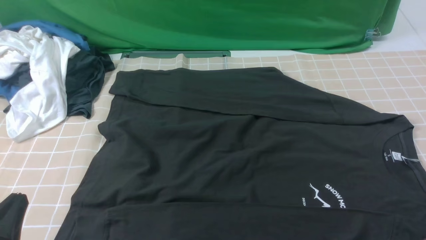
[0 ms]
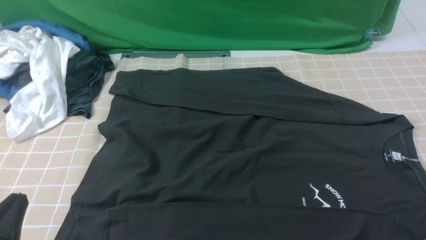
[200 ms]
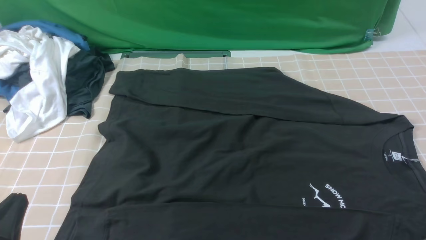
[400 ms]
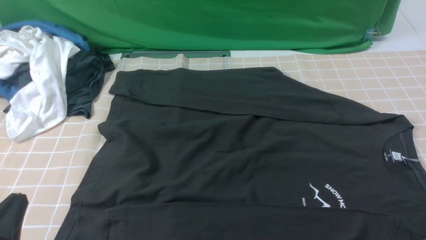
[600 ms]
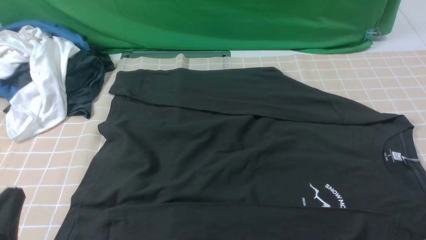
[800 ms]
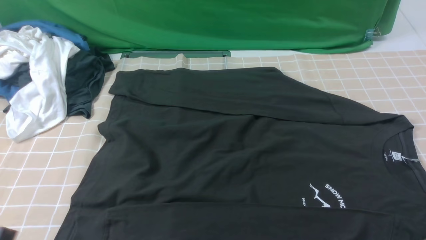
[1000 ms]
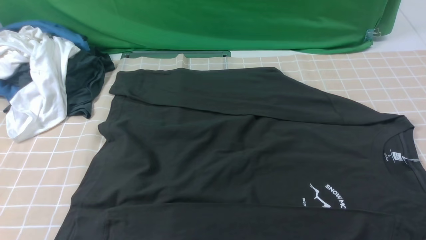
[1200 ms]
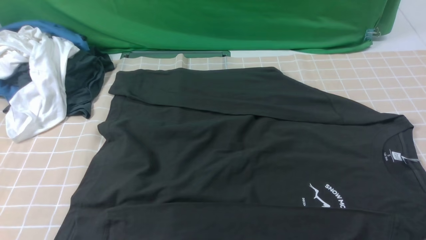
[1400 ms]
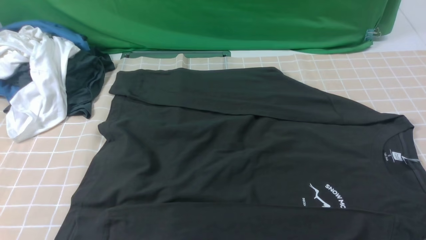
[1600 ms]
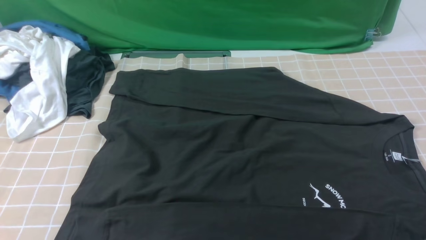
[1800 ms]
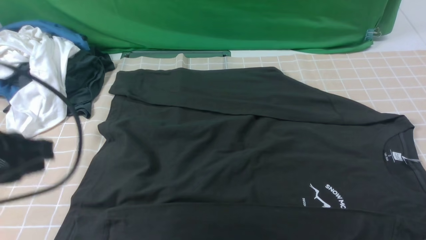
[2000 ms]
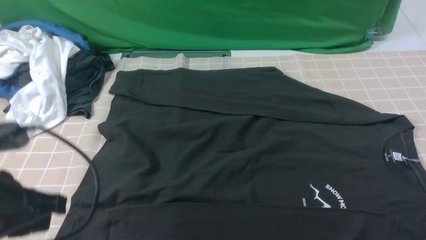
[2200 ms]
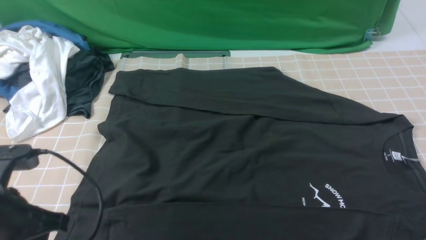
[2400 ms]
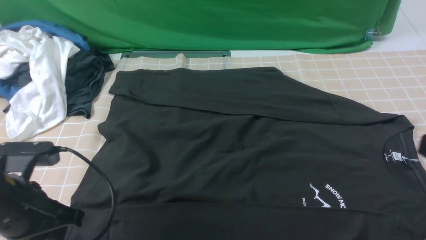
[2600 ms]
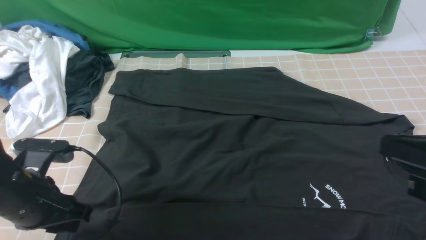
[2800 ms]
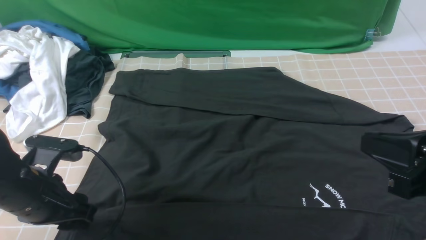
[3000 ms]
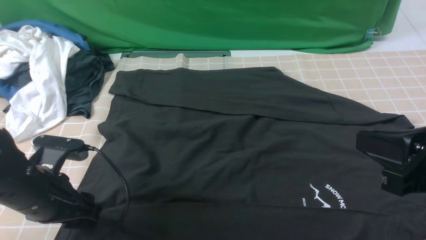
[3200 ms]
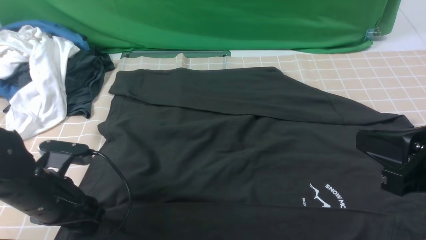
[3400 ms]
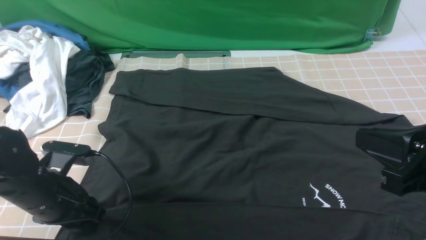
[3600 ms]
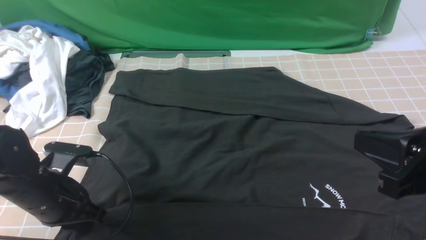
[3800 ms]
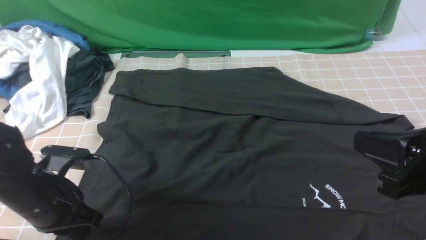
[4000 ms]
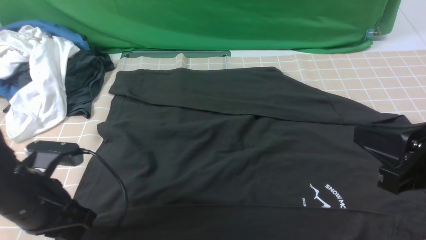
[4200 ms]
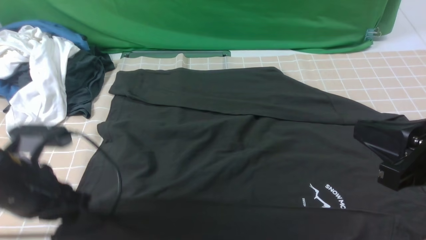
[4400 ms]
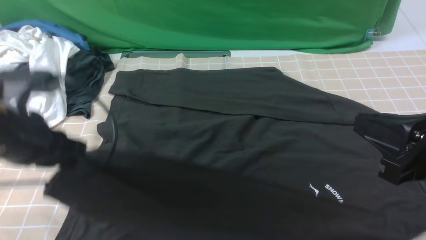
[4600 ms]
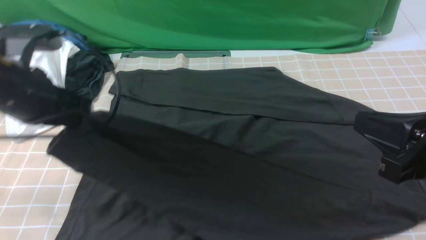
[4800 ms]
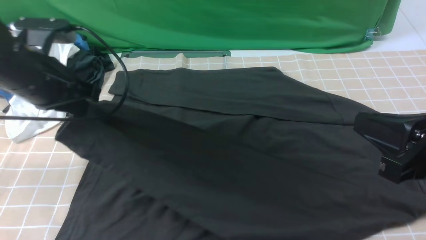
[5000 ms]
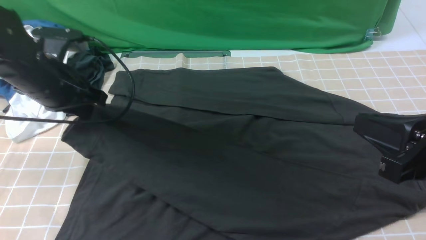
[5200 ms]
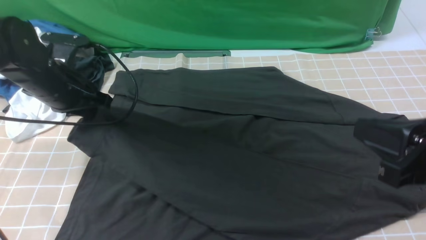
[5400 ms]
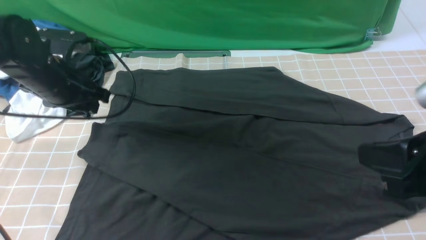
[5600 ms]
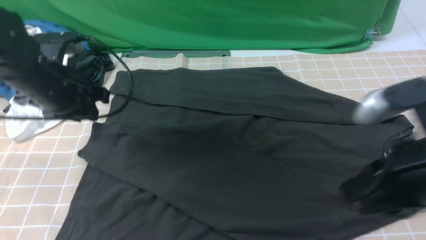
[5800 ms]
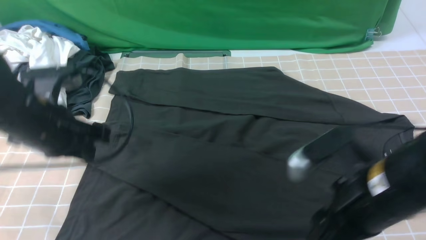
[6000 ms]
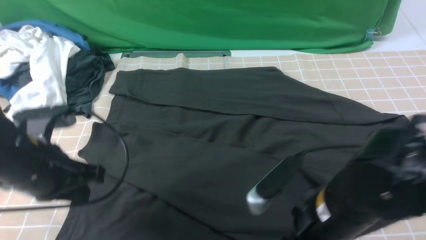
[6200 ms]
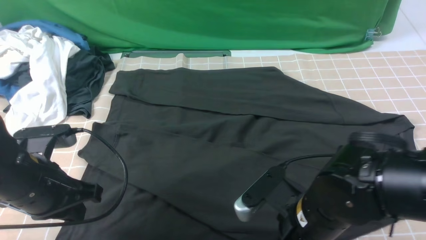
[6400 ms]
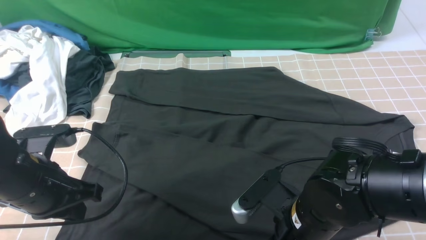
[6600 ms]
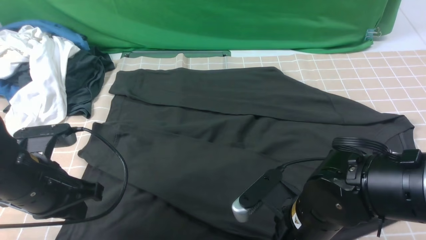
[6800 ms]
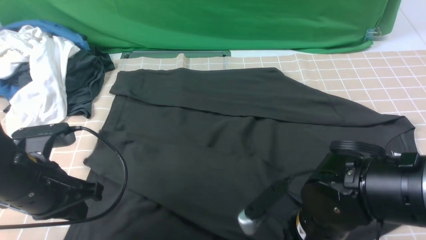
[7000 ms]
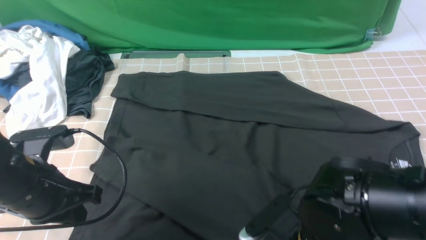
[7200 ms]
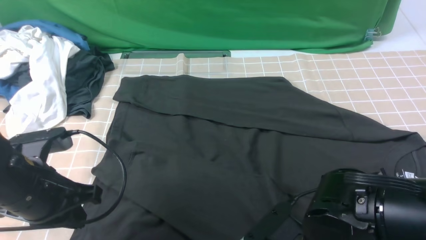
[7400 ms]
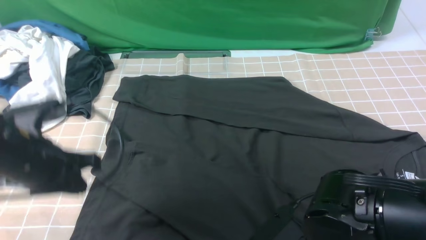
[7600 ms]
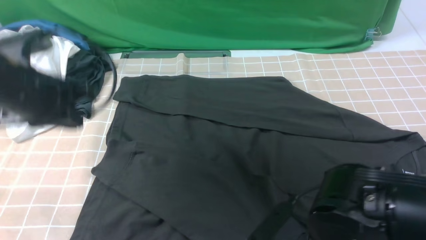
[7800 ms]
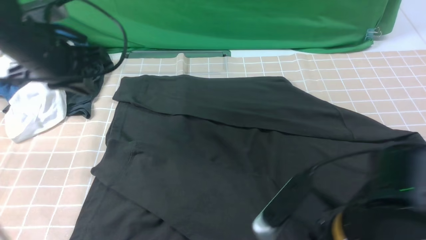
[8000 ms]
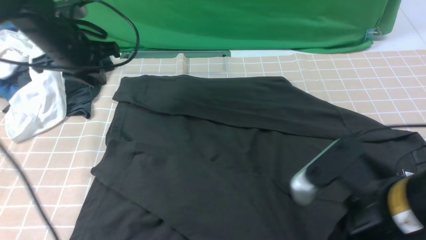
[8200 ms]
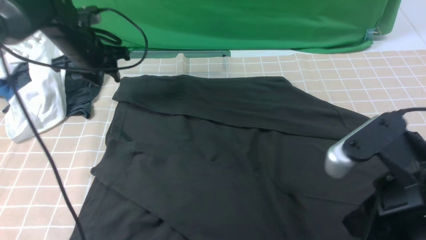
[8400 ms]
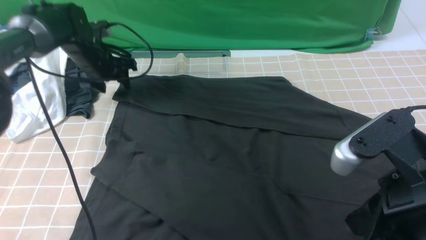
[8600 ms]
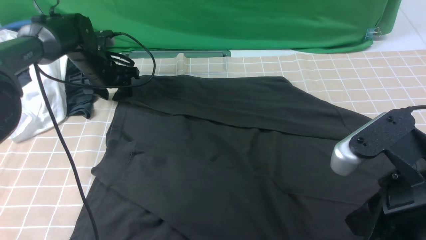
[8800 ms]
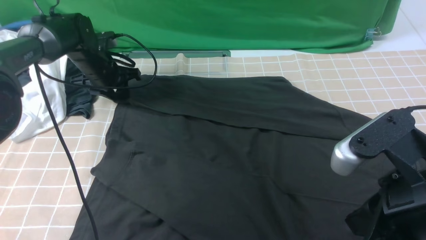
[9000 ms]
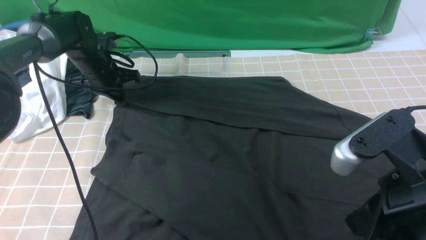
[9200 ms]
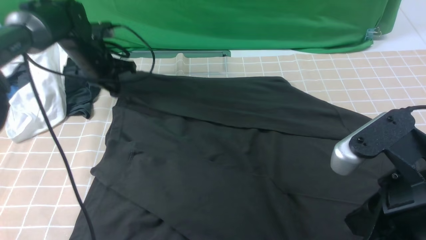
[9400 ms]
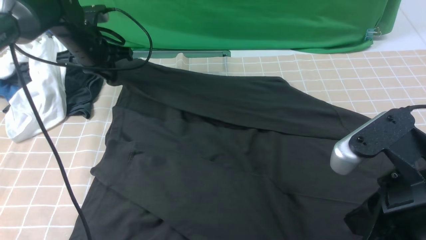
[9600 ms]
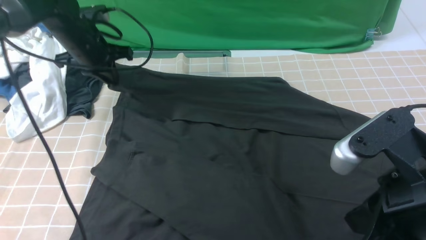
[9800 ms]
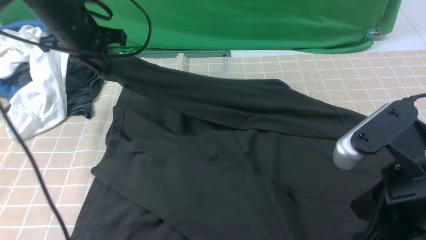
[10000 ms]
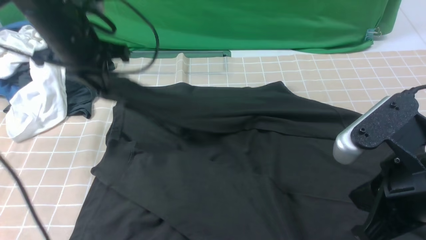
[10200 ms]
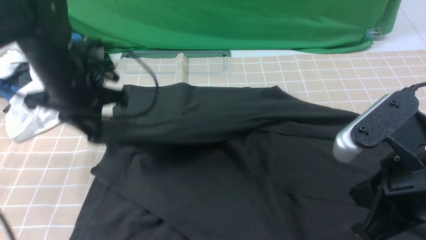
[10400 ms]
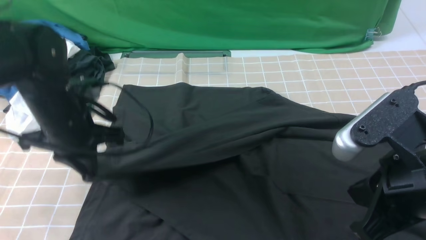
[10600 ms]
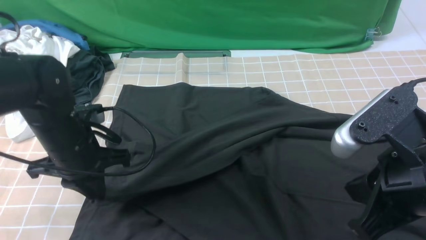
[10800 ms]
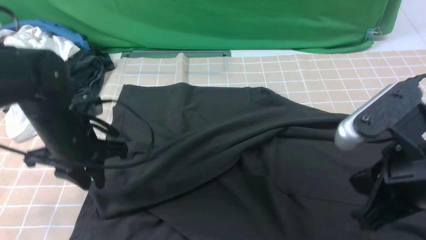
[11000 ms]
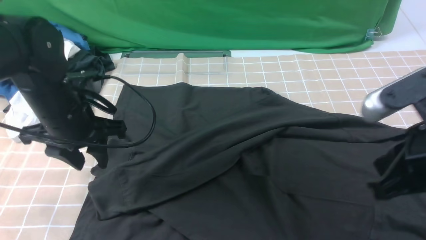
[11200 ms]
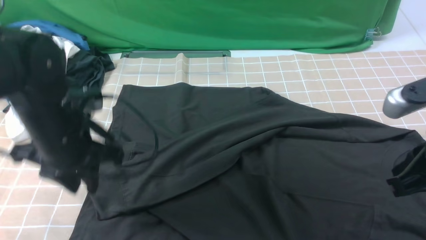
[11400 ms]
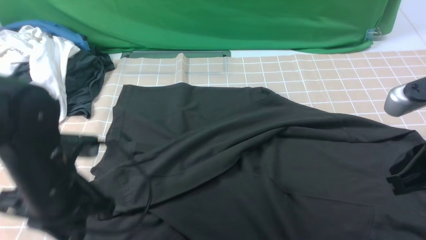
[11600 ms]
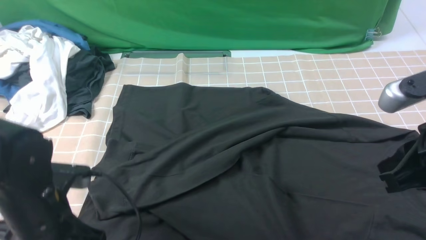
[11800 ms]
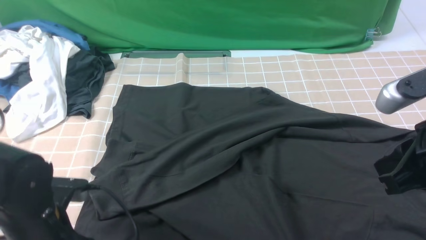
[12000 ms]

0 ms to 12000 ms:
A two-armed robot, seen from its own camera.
Step, 0 ms to 3600 ms: use the left arm to clamp the cuff closest to it.
Step, 4000 ms to 5400 ms: use the left arm to drag and place the cuff at the centered position on the left edge of the fabric.
Step, 5600 ms to 9000 ms: use the left arm to clamp the cuff farthest from it.
Step, 9200 ms to 10800 ms: use the left arm to drag and drop the cuff onto the cuff closest to the left arm.
0 ms to 1600 ms: The left gripper shifts about 15 cm upward.
1600 ms to 3000 ms: The left gripper travels downward and forward by roughly 20 cm, and opens its fingers. Meanwhile the right gripper heads upward, to the left and forward, covering about 15 cm, and closes its fingers.
3000 ms to 4400 ms: The left gripper shifts some 5 cm upward, and closes its fingers.
4400 ms to 6000 ms: The right gripper heads to the left and downward, covering approximately 10 cm, and opens up; the left gripper heads forward, covering some 5 cm.
6000 ms to 7600 ms: The right gripper is displaced downward and to the left by about 10 cm, and closes and opens again.
7600 ms to 9000 ms: The right gripper moves upward and to the right, some 15 cm, and closes up, while the left gripper heads forward, covering some 25 cm, and opens its fingers.
9000 ms to 10400 ms: The left gripper is displaced backward and upward by roughly 20 cm, and closes.
10400 ms to 12000 ms: The right gripper changes place by about 5 cm; the left gripper is displaced backward and downward by about 20 cm, and opens its fingers.

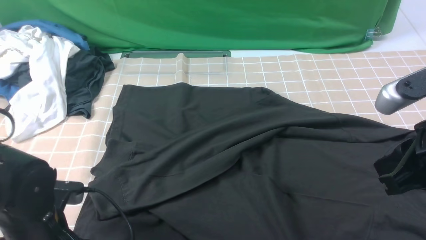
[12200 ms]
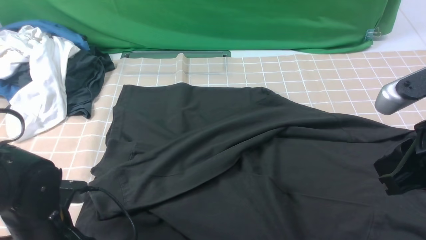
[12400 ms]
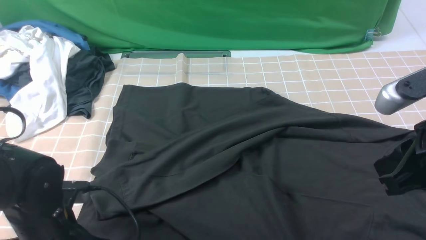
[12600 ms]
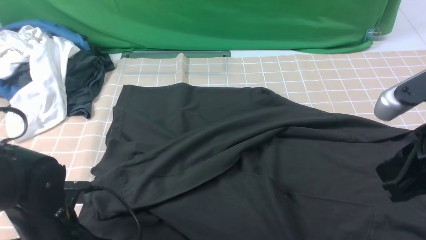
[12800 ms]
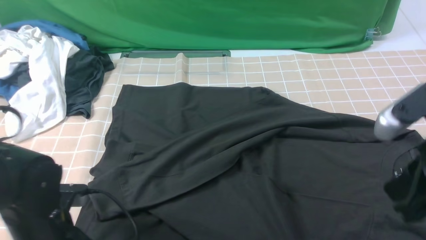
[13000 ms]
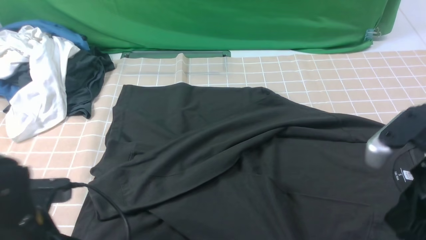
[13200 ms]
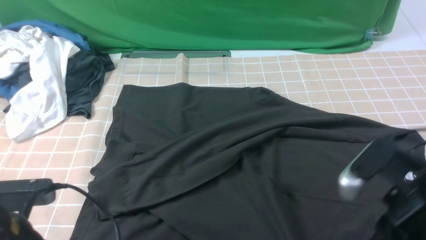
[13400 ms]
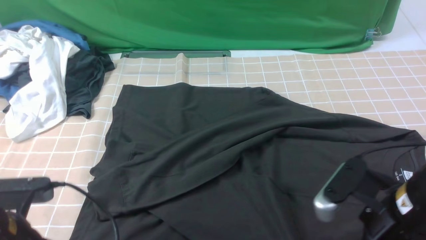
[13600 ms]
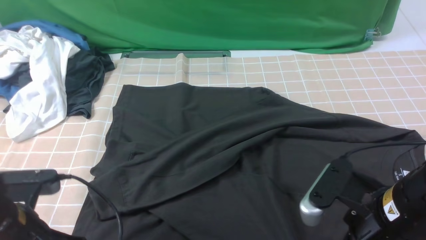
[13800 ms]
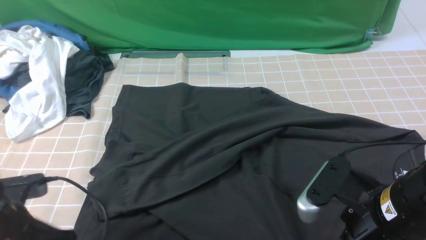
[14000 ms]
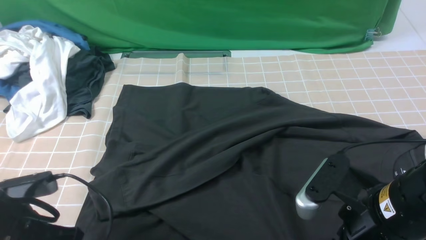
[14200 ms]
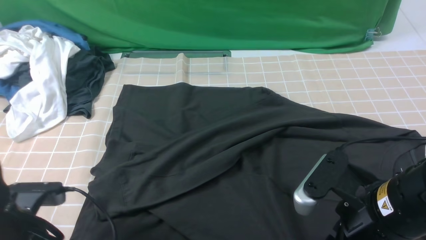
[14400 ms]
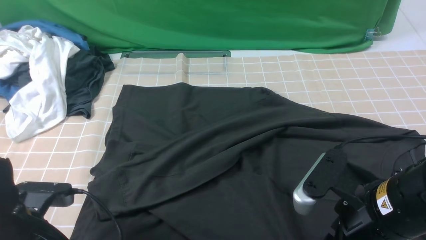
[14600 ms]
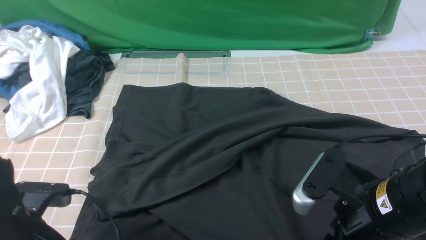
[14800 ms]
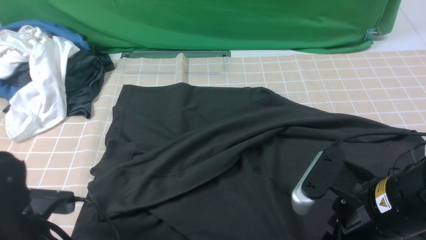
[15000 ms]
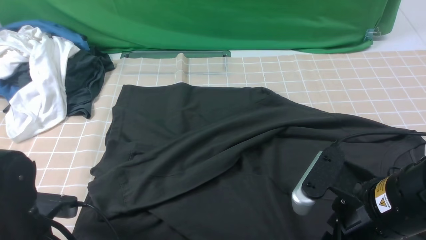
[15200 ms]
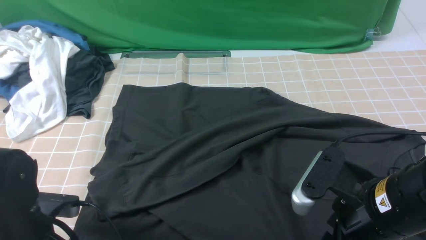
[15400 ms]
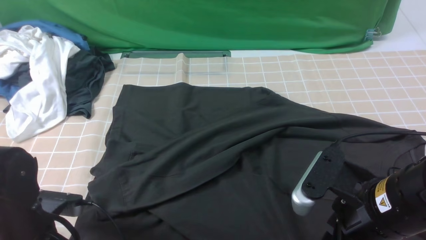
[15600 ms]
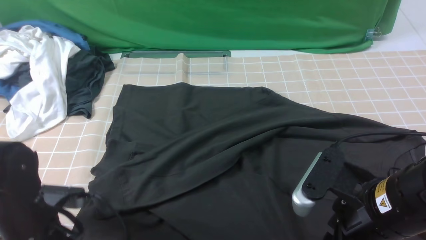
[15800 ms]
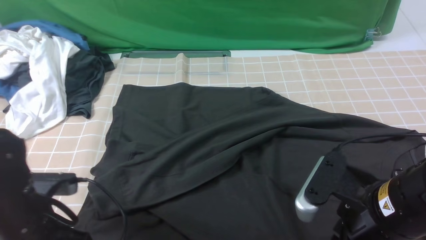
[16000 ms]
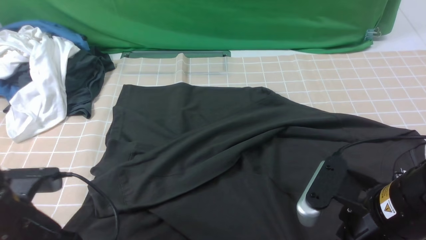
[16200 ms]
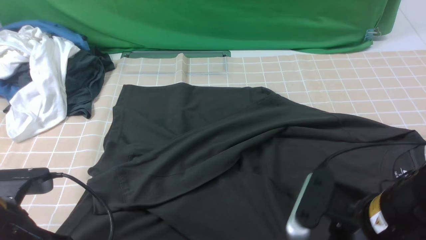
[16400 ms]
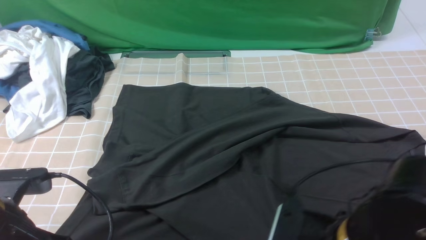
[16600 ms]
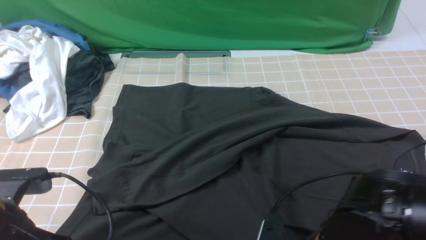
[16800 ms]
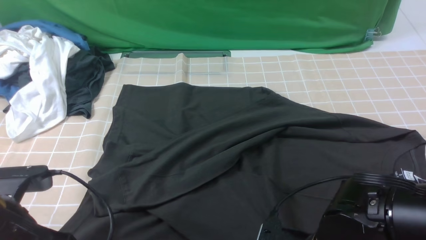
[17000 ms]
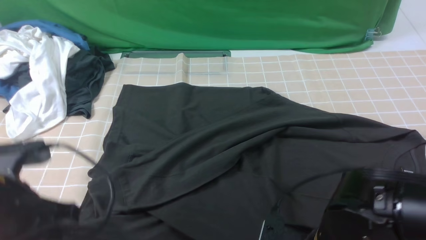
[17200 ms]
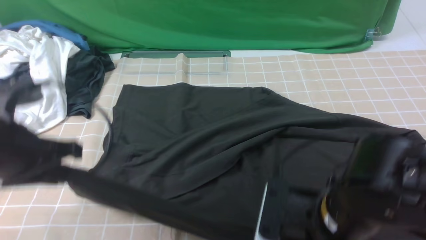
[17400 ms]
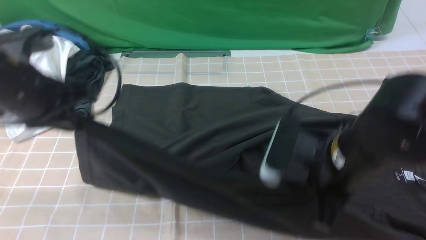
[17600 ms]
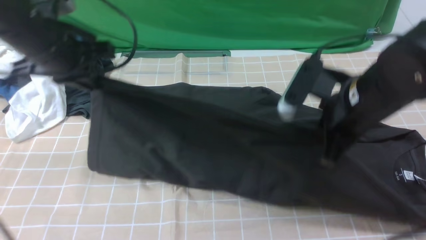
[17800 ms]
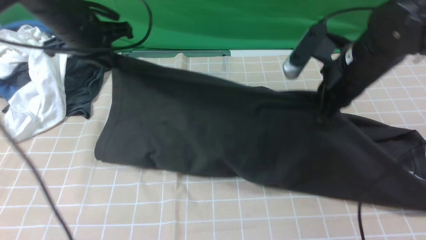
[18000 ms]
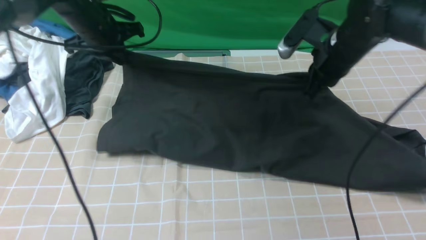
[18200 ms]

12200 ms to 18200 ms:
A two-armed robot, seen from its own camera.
Step, 12200 ms to 17000 ms: use both arms simultaneously to clamp the lower edge of the clothing fabric.
12200 ms to 13800 ms: The right gripper goes some 10 cm downward and to the left, and opens up. The left gripper changes place by some 5 cm, and closes.
13800 ms to 15200 ms: The left gripper shifts some 5 cm downward, and opens its fingers.
15200 ms to 16600 ms: The left gripper is displaced upward by about 5 cm, and closes its fingers. The right gripper moves about 5 cm.
16600 ms to 18200 ms: The grippers both shift forward by roughly 30 cm. The right gripper closes up.
